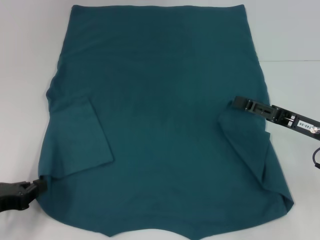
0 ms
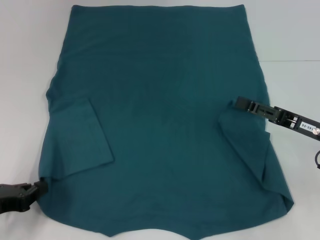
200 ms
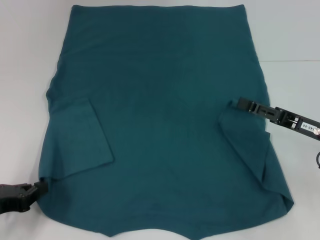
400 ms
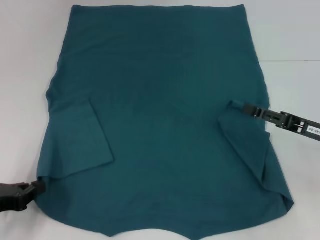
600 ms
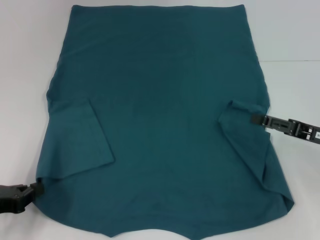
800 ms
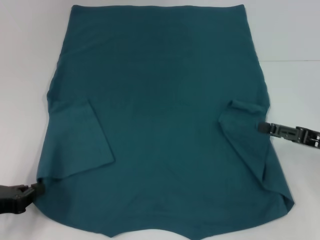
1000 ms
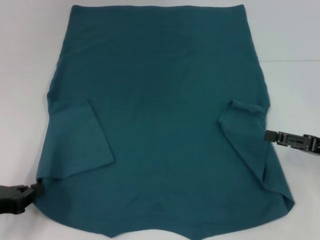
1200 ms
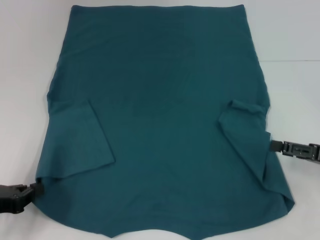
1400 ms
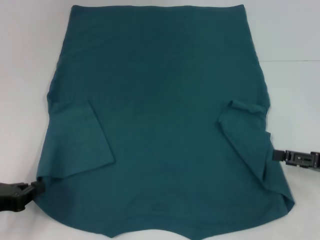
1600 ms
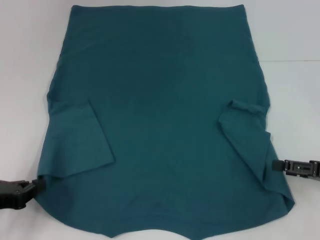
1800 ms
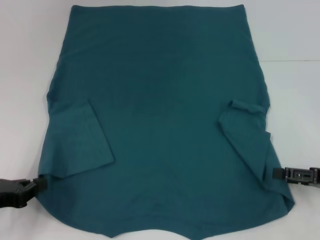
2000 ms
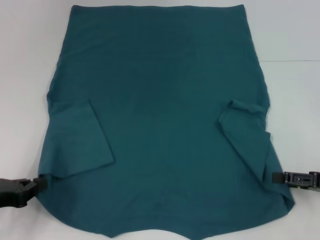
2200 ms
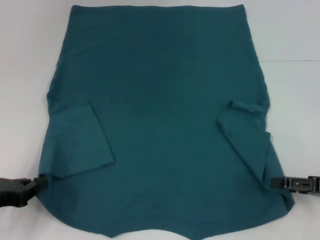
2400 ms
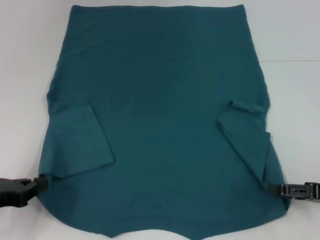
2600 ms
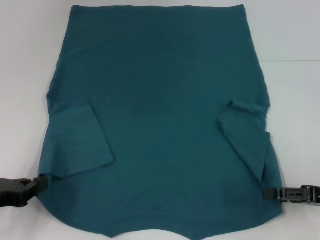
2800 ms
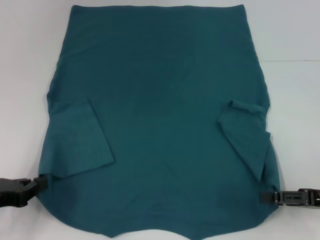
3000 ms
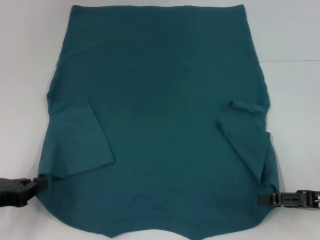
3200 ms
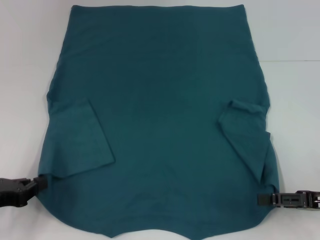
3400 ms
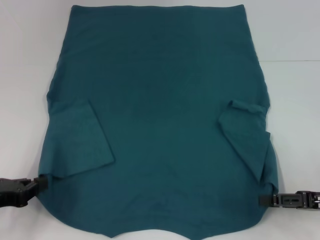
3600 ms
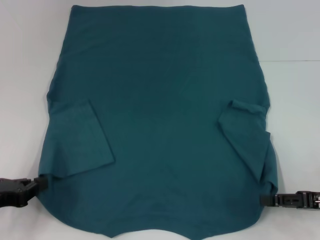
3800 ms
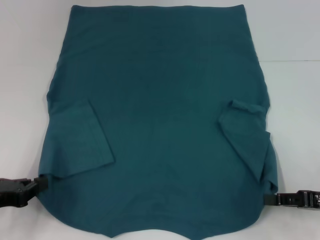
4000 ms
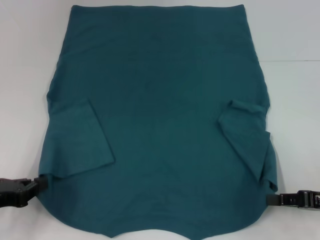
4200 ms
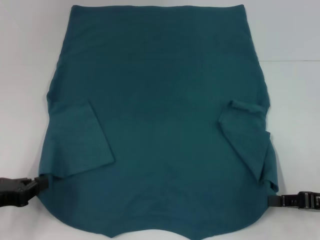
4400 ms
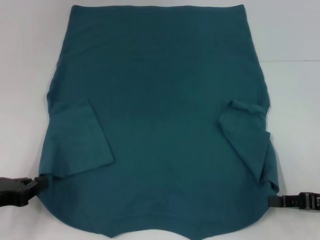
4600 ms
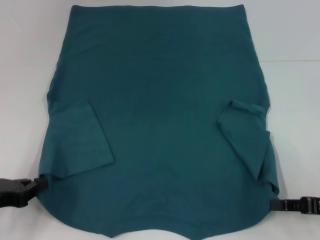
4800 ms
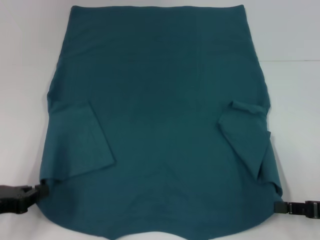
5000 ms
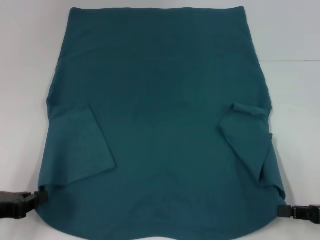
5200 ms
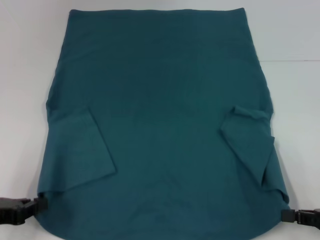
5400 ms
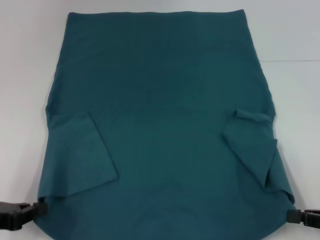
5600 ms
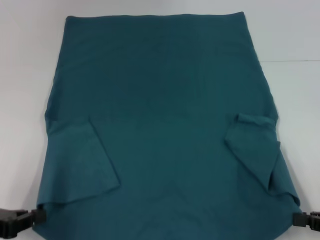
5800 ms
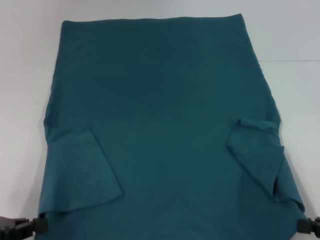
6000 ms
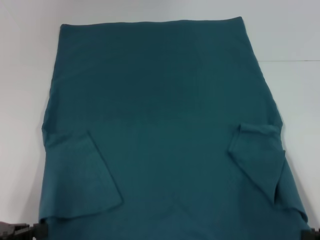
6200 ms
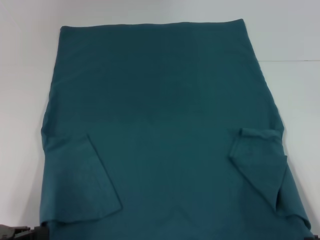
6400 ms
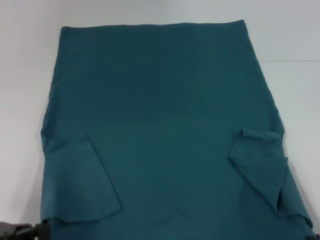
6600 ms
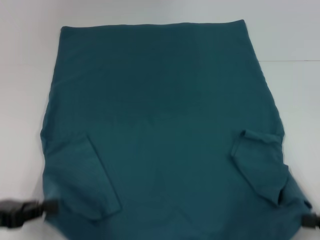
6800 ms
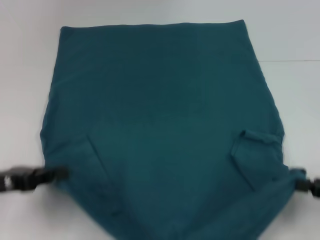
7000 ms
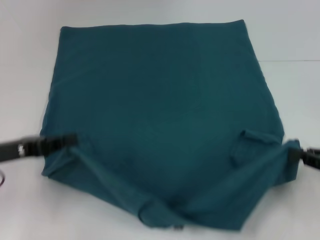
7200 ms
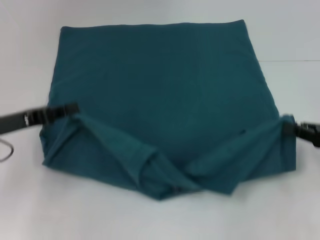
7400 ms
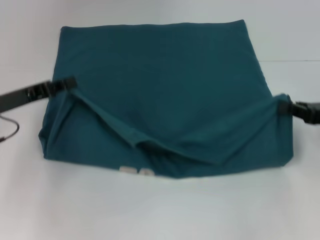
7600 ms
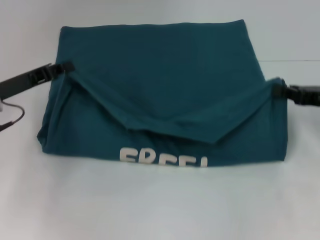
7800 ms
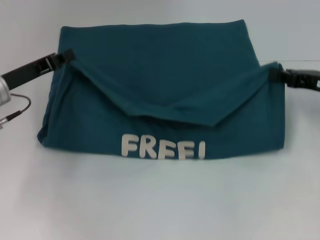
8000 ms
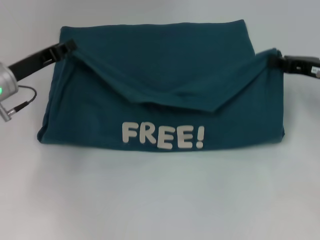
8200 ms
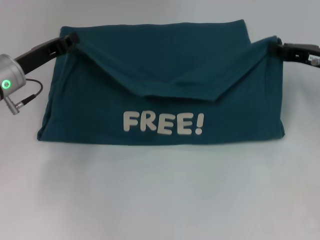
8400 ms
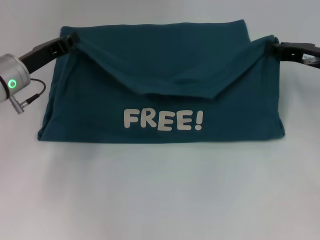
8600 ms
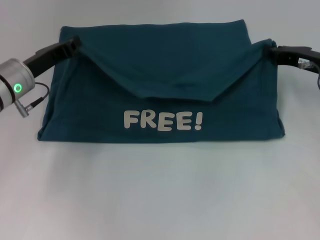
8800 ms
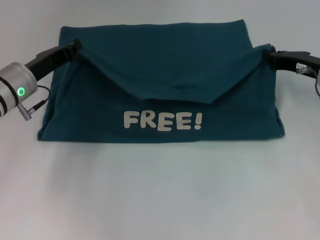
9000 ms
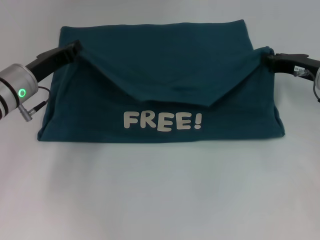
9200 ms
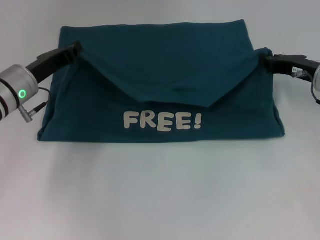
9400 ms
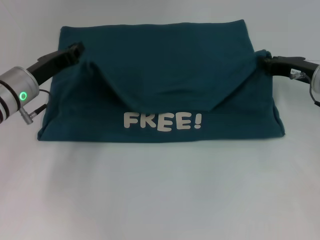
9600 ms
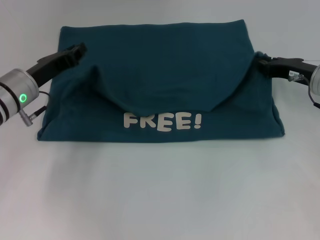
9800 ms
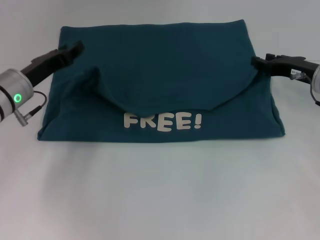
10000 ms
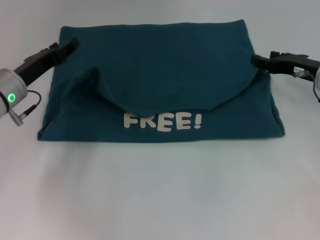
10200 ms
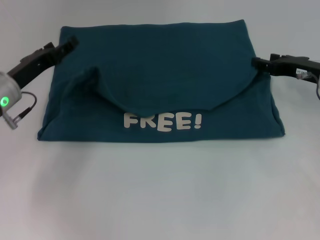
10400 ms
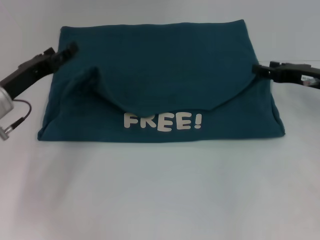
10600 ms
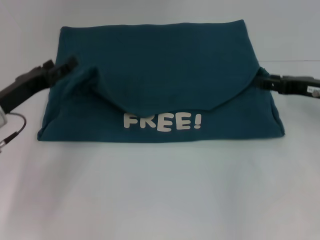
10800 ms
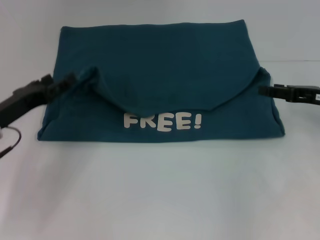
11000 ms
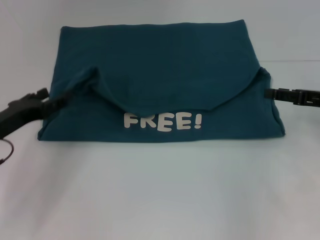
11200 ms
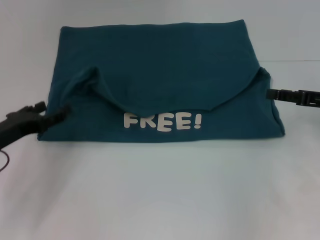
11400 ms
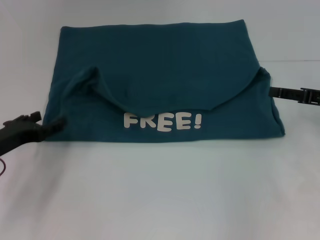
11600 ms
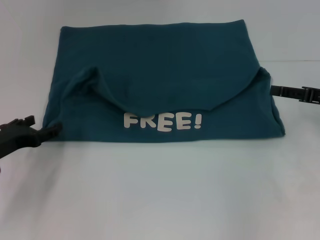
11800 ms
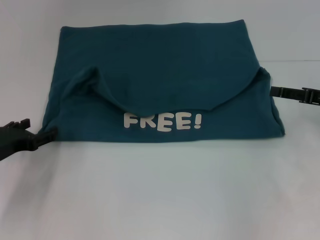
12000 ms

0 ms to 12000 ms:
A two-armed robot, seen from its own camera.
Step, 600 ms to 4800 ms: Grab the bottom right corner with your right hand.
Step, 5000 ms to 10200 ms: Fold the clothes to the left.
Step, 5000 ms to 10200 ms: Fold the clothes to the right.
0 ms to 1600 ms: The right gripper shifts roughly 5 cm to the right.
1600 ms to 3000 ms: There are only small adjustments of the grippers.
3000 ms to 4400 ms: The right gripper closes.
4400 ms to 6000 ms: The right gripper goes about 5 cm backward.
6000 ms to 7600 ms: The two grippers go about 15 cm forward.
7600 ms to 9000 ms: The left gripper is displaced forward and to the right by some 10 cm. Meanwhile the right gripper is displaced forward and to the left by approximately 10 cm.
9000 ms to 10400 ms: The right gripper opens its fingers; the left gripper opens up.
10400 ms to 12000 ms: The right gripper is displaced backward by about 5 cm. Meanwhile the left gripper travels backward and downward by some 10 cm.

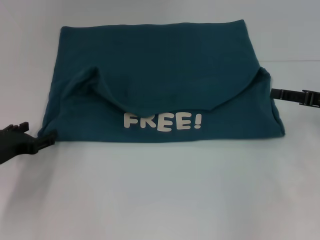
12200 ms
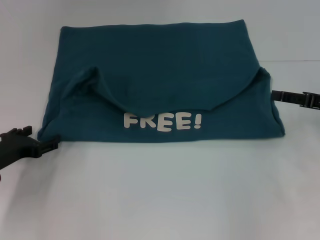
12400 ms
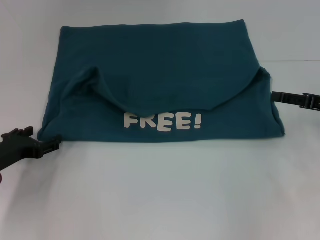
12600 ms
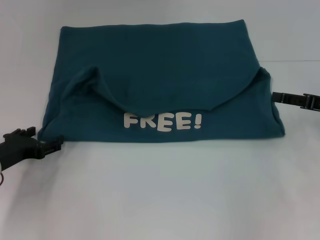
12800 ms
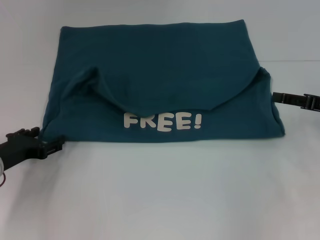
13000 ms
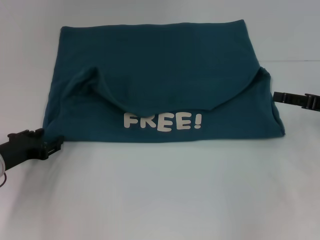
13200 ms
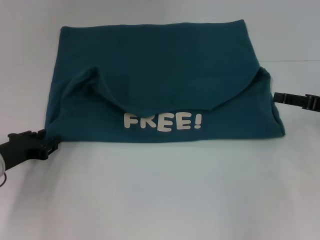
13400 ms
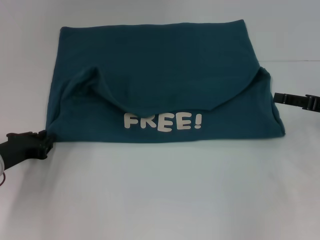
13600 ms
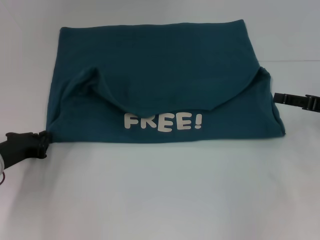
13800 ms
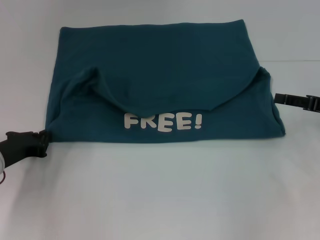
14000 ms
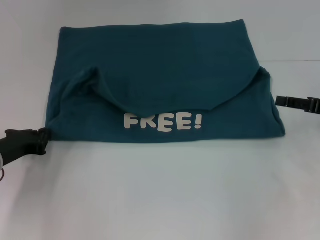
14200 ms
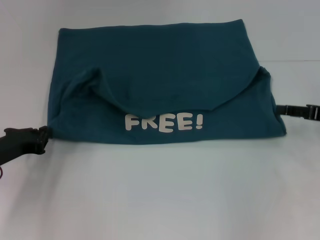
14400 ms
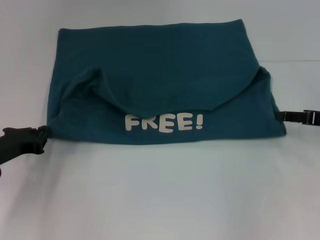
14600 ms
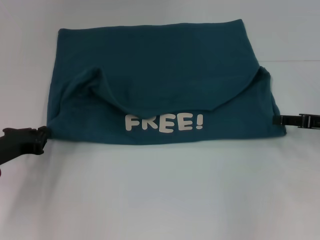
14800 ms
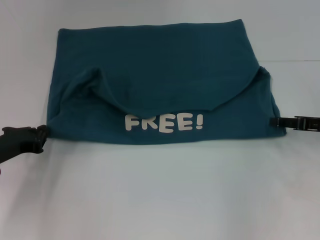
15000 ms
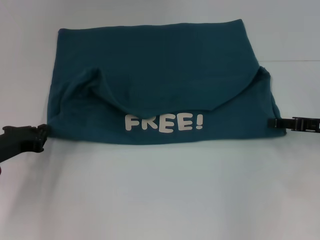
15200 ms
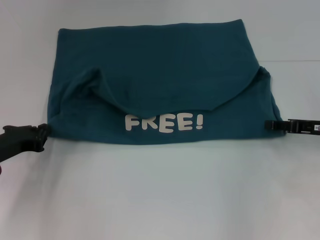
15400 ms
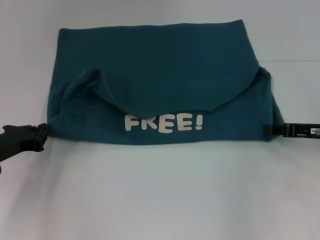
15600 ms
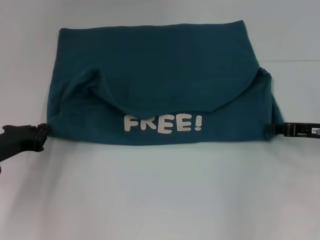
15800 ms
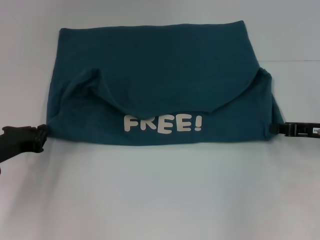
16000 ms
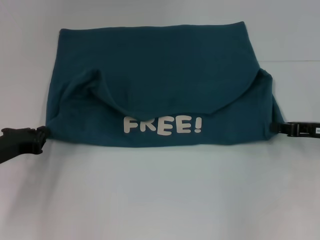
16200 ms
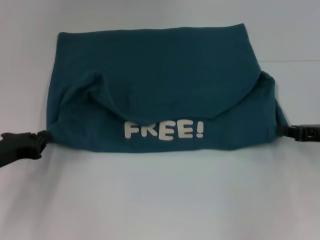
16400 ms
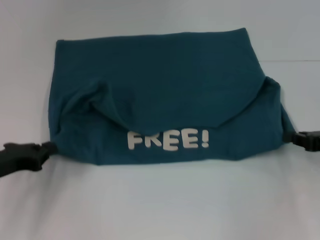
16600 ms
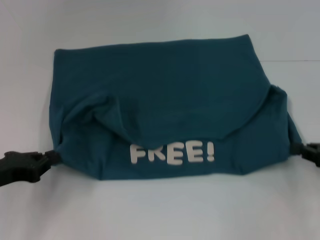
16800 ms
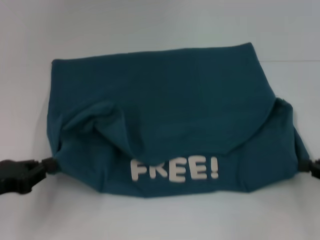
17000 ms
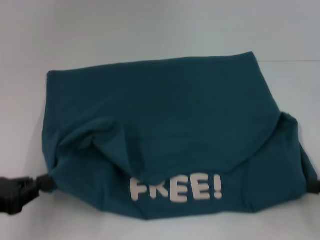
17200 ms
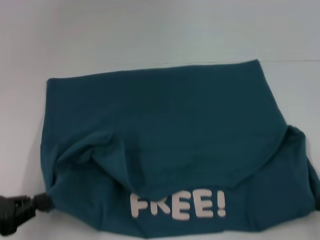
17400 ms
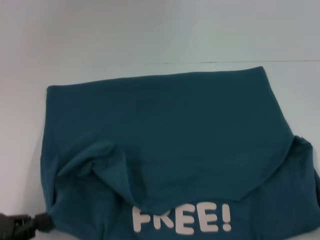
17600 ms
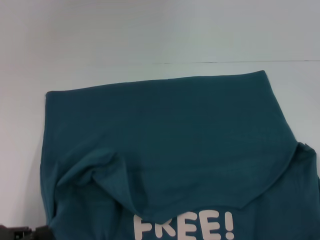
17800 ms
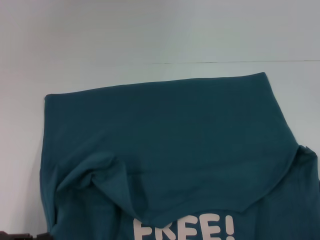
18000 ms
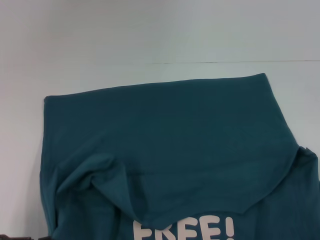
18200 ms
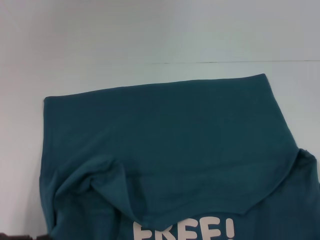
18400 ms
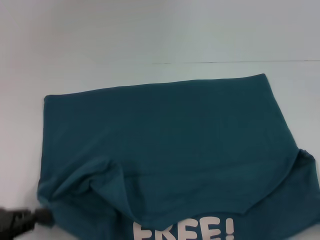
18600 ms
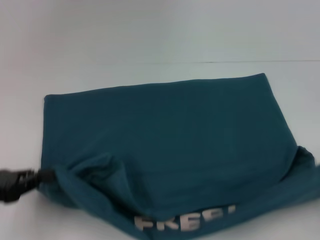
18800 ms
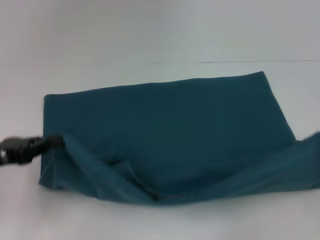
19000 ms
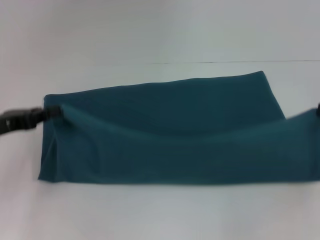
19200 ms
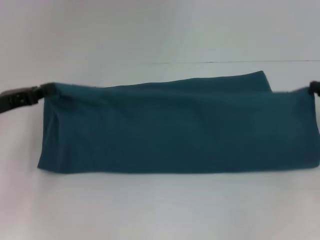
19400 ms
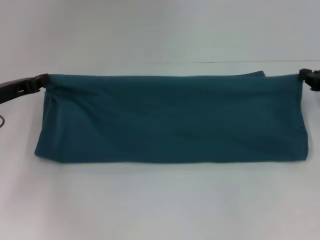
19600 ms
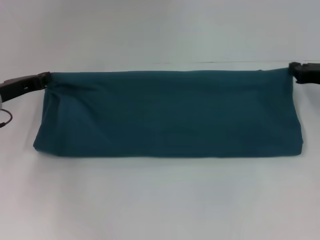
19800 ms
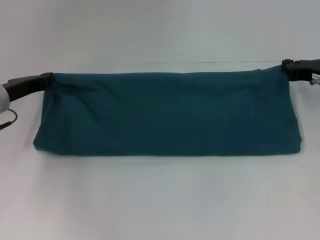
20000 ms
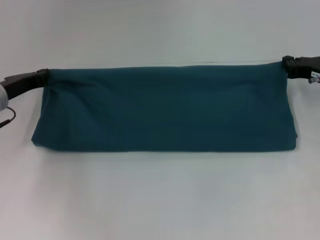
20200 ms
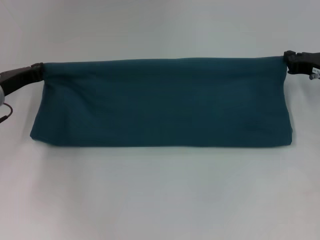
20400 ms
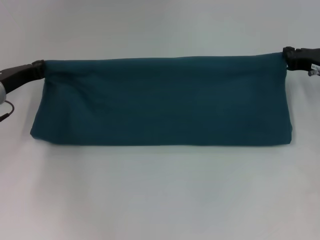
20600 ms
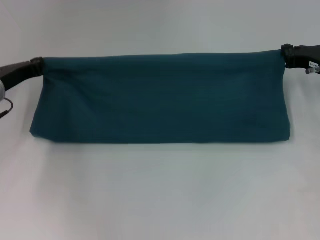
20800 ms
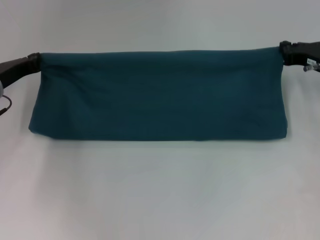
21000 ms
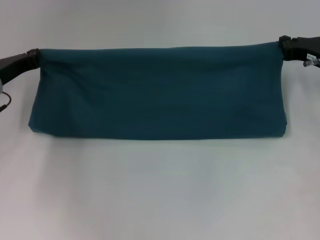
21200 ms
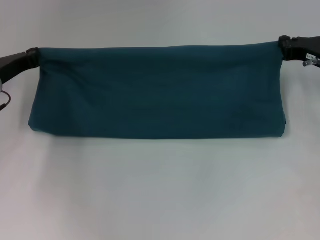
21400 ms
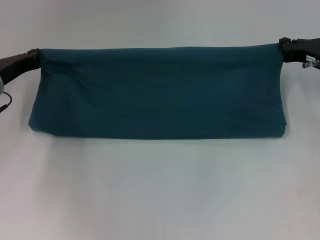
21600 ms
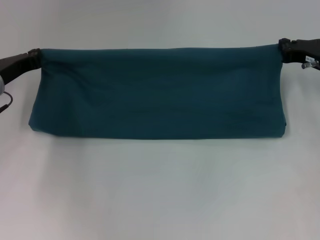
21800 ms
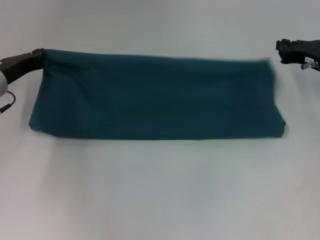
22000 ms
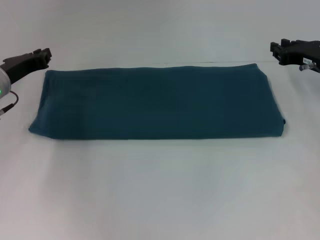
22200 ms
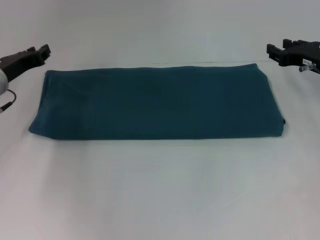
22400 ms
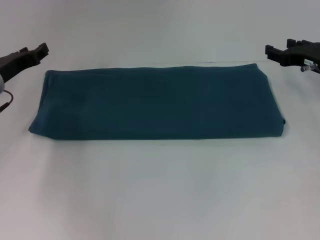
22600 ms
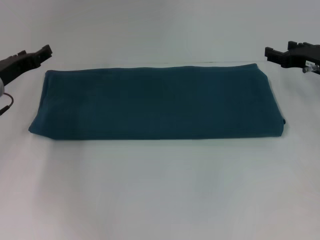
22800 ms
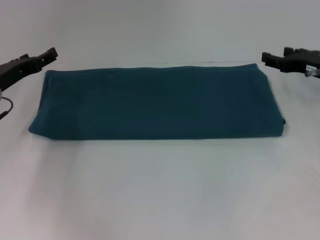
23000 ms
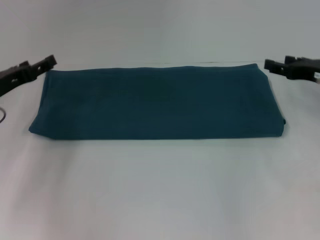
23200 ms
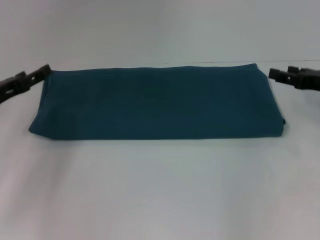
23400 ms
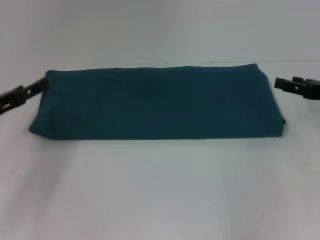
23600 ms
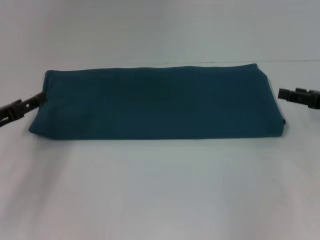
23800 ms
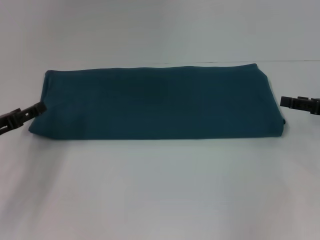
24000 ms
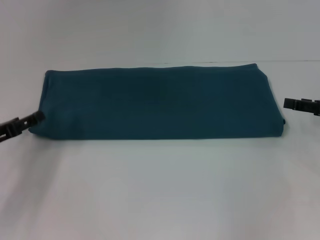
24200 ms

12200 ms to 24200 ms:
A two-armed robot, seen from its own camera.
Step, 12200 ms to 17800 ms: Pull the clothes with your left hand.
Step, 12200 ms to 17800 ms: Pull the clothes with your right hand.
Step, 18000 ms to 22200 ms: Fold the clothes to the right.
12200 ms to 13800 ms: The left gripper closes.
13800 ms to 15200 ms: The grippers make only small movements.
15200 ms to 16600 ms: The right gripper closes.
16600 ms to 18200 ms: The grippers both shift backward by roughly 15 cm.
18200 ms to 19800 ms: Both grippers move forward, approximately 25 cm.
21200 ms to 22600 ms: The right gripper opens up, while the left gripper opens up.
22600 ms to 24200 ms: The right gripper is displaced backward and to the right by some 10 cm. Meanwhile the left gripper heads backward, covering about 10 cm, and opens.
